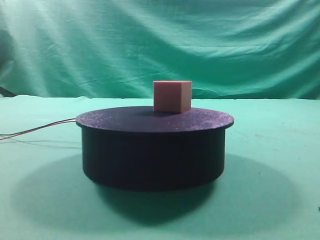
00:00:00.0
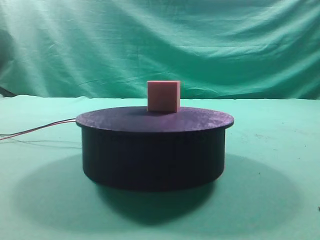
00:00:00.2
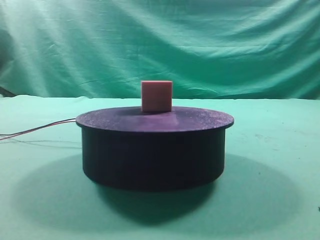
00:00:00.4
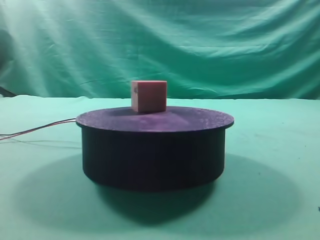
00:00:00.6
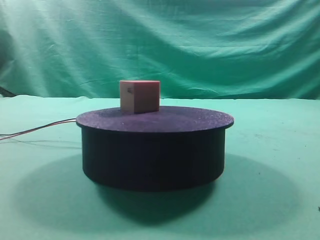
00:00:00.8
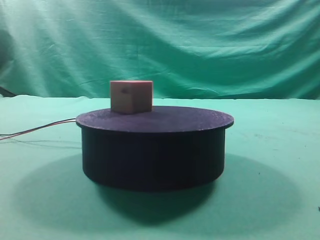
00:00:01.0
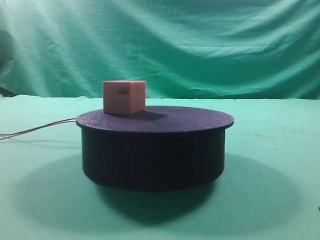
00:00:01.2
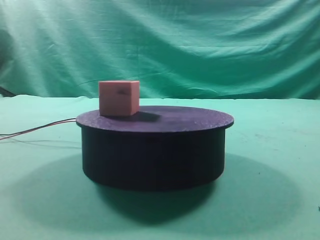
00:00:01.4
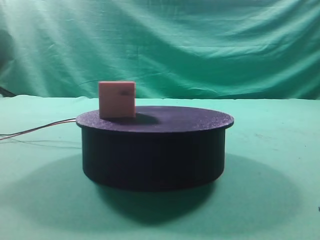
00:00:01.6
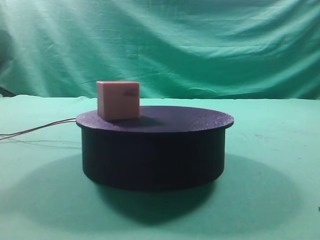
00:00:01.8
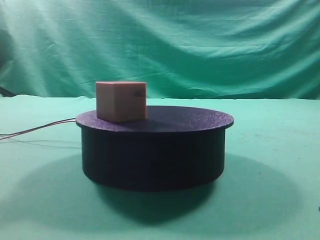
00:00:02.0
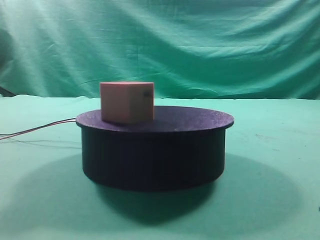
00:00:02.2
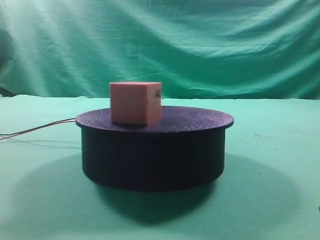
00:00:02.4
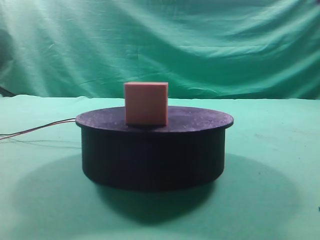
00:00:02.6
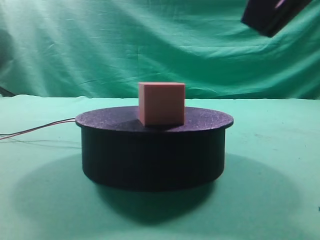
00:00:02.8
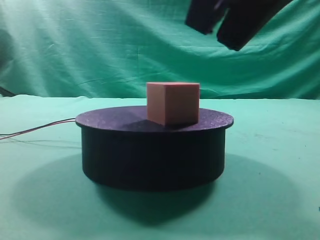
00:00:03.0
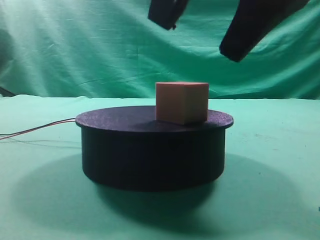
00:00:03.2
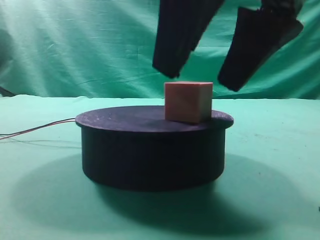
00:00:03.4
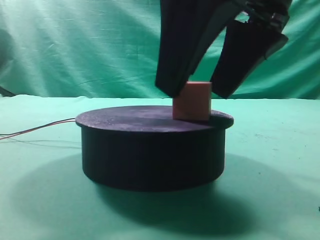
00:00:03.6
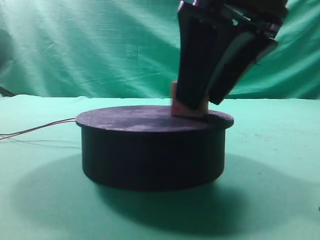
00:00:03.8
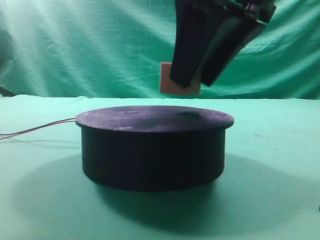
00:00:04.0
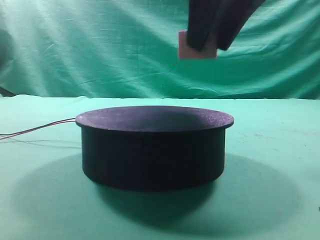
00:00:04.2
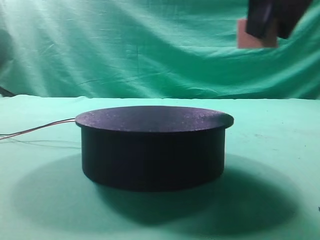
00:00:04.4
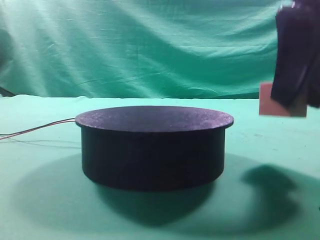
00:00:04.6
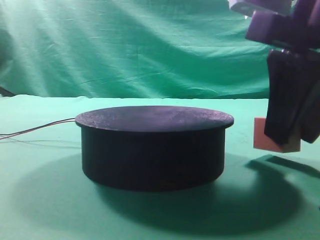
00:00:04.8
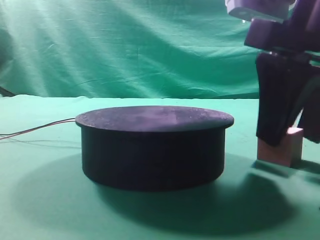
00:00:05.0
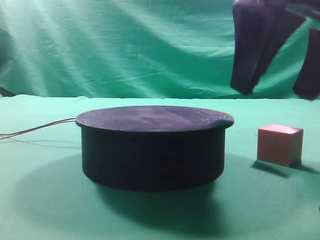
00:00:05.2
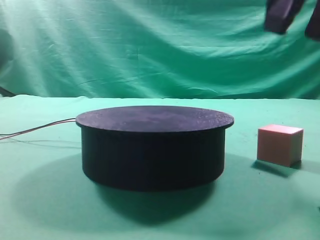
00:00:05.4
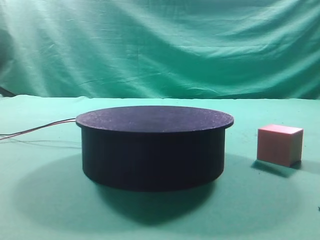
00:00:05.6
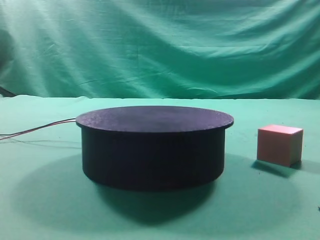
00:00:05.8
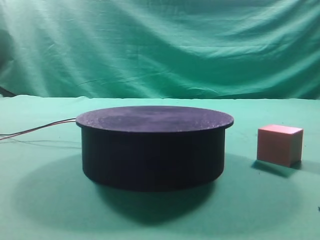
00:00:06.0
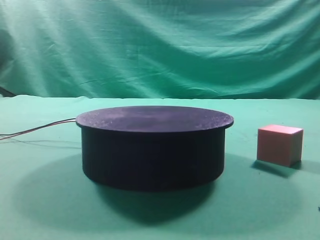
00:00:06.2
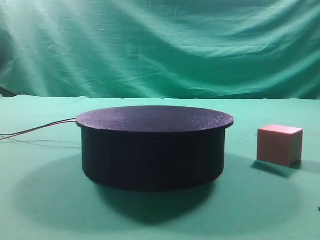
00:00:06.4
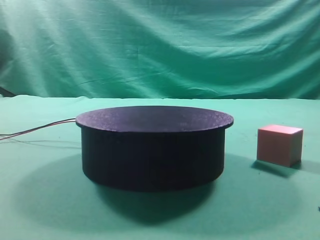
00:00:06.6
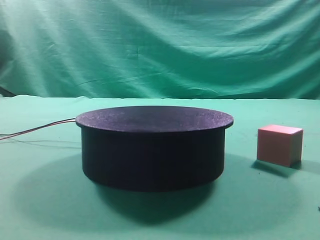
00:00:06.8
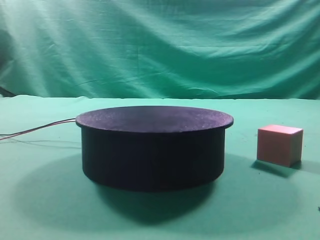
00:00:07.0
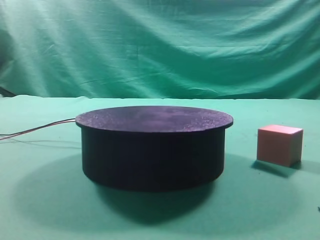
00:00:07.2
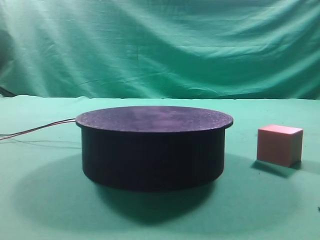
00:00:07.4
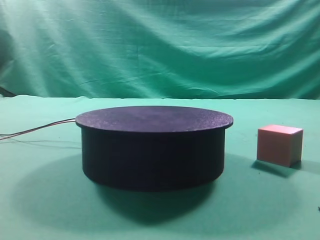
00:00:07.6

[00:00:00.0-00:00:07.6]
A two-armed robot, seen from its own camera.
Task of the whole recording: grasp the rotating cube-shaped block on the turntable and place it on the table.
Step, 00:00:00.0 to 00:00:04.0: Grasp the rotating cube-shaped block on the turntable.
Step, 00:00:04.2 to 00:00:05.2: Place the cube on the desk.
